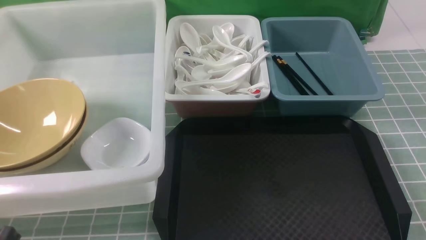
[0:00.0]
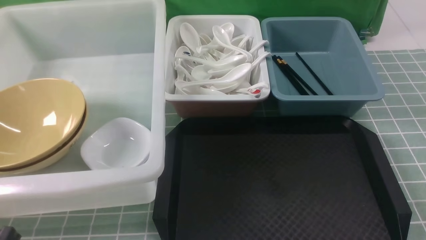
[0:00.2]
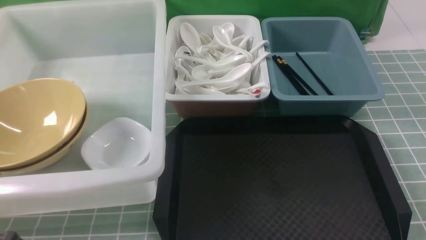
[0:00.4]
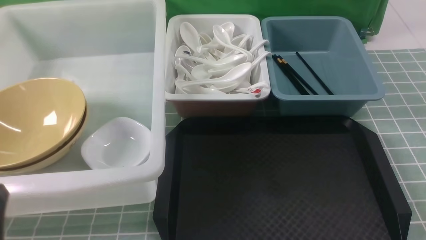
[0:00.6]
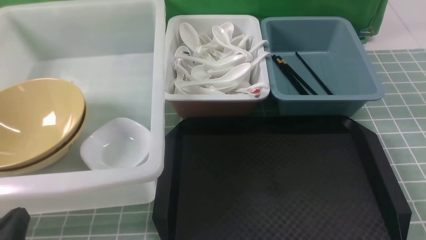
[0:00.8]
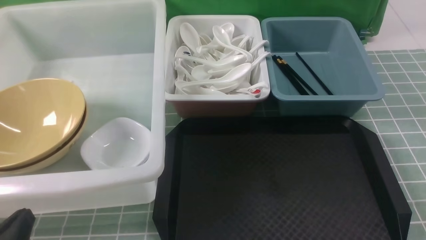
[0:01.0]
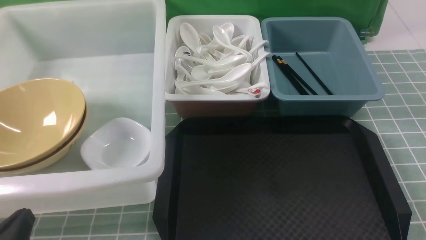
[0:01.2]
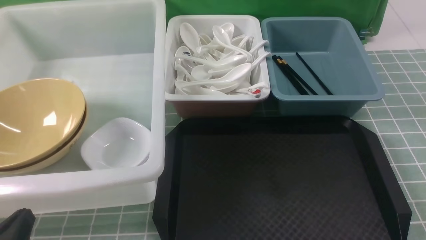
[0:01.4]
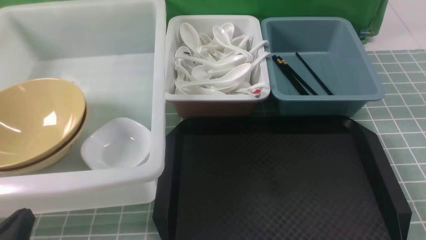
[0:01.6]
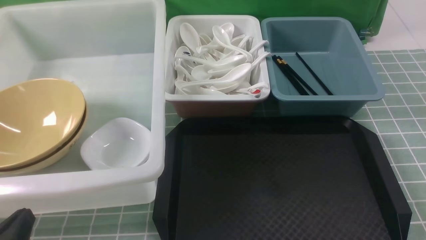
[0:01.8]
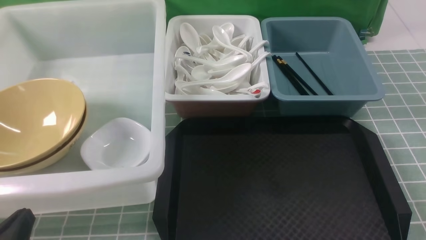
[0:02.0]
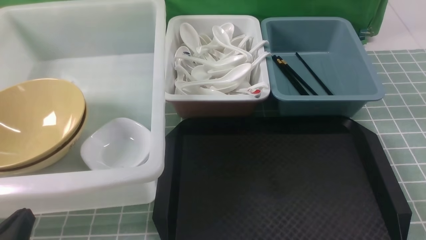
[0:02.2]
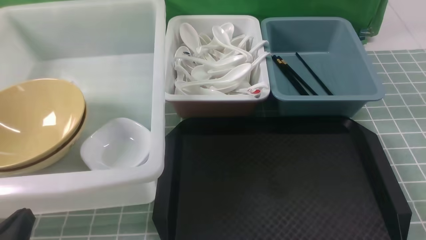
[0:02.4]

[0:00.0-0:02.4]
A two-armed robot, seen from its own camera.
Task of the whole recording: on blue table put chopsticks spoon bowls plates into blue grey white boxes.
0:00.0 to 0:01.2: The left gripper heads downward, covering about 10 cm.
0:01.2 to 0:02.4: Both grippers stay put.
